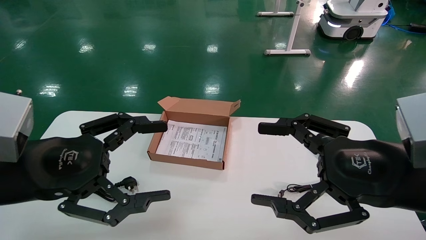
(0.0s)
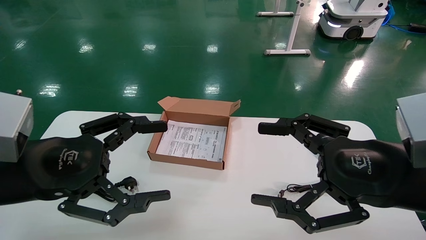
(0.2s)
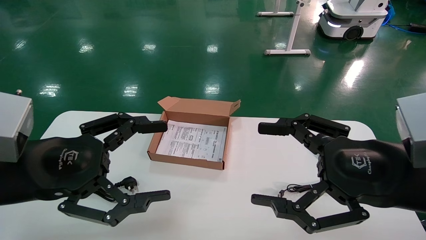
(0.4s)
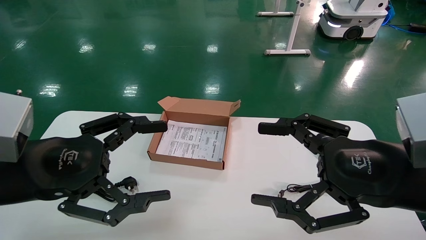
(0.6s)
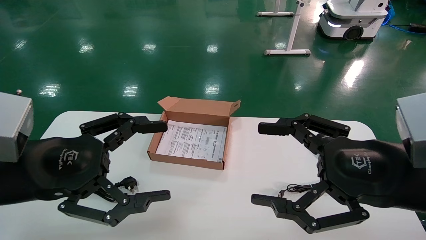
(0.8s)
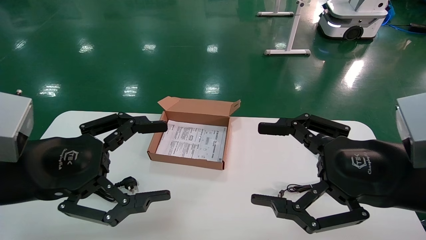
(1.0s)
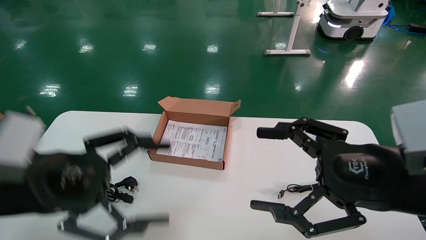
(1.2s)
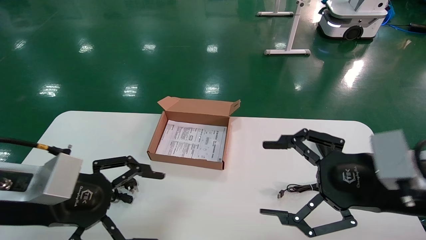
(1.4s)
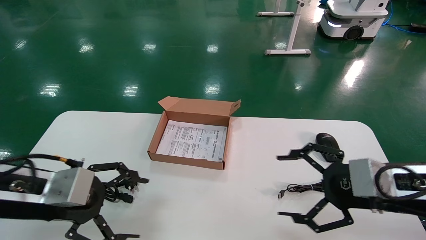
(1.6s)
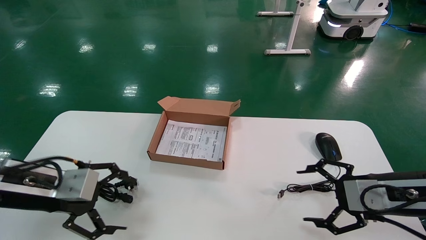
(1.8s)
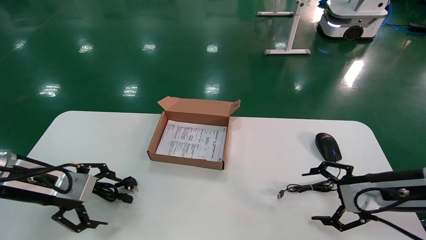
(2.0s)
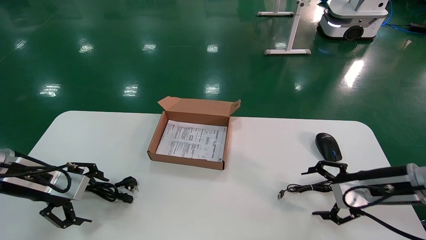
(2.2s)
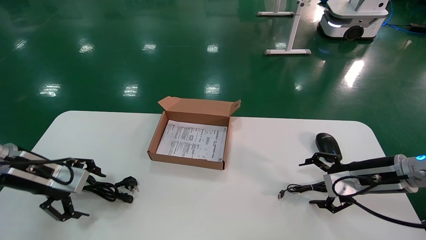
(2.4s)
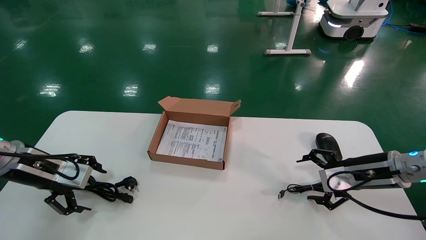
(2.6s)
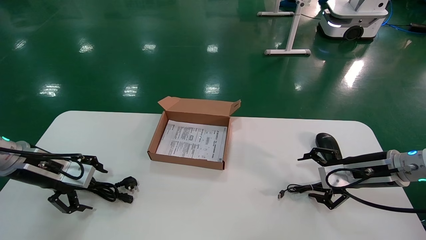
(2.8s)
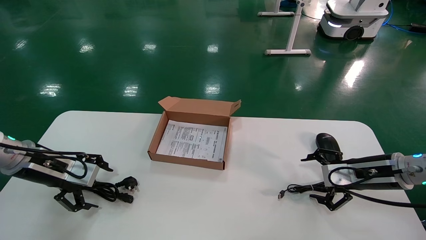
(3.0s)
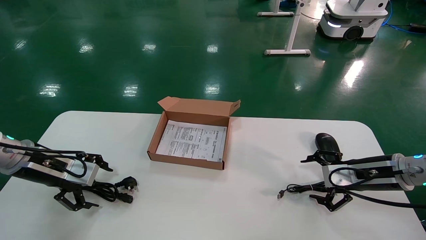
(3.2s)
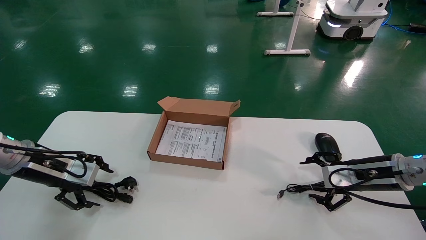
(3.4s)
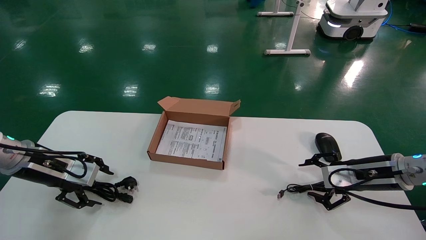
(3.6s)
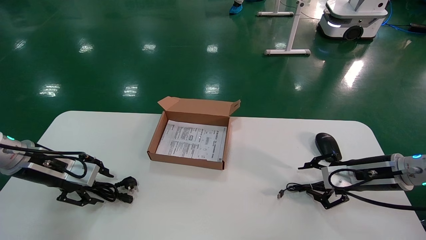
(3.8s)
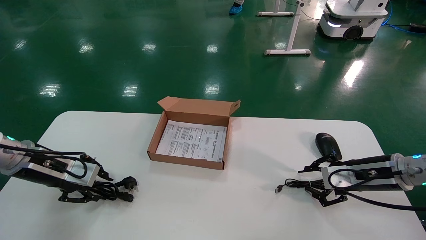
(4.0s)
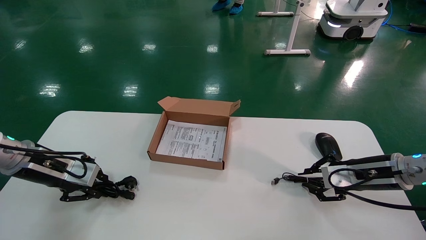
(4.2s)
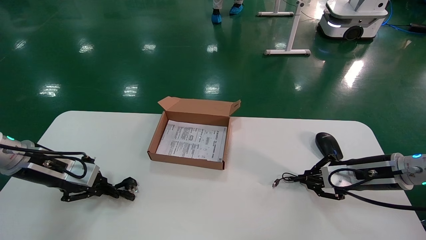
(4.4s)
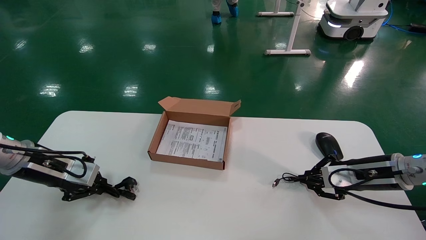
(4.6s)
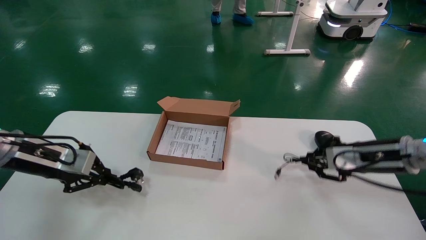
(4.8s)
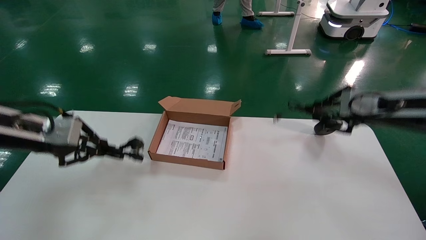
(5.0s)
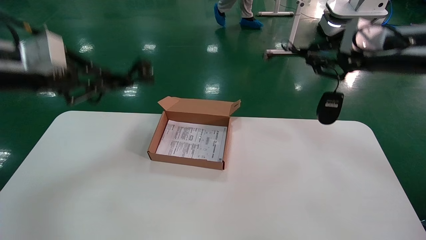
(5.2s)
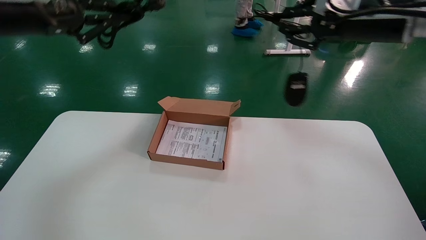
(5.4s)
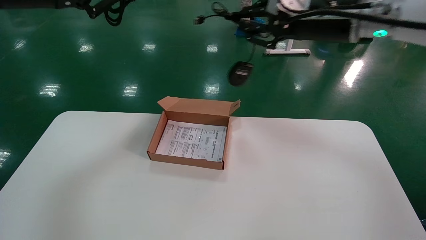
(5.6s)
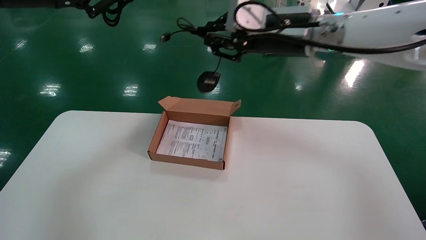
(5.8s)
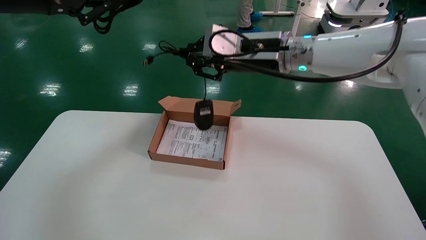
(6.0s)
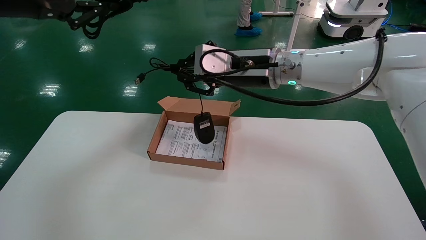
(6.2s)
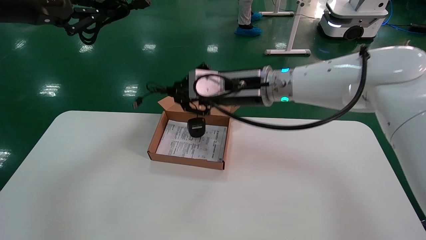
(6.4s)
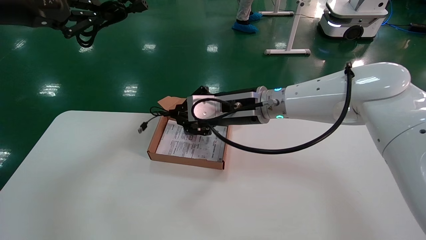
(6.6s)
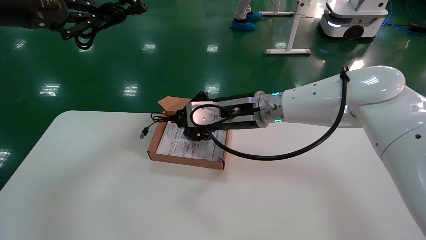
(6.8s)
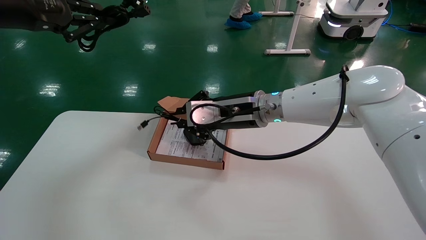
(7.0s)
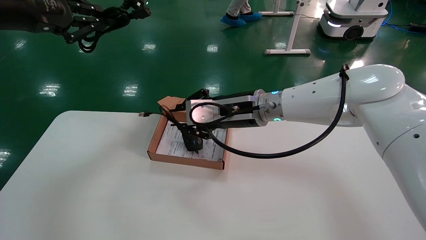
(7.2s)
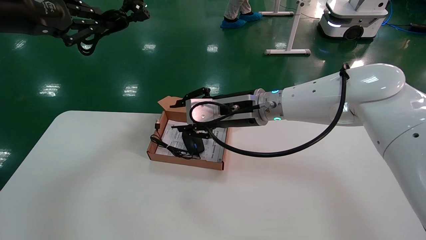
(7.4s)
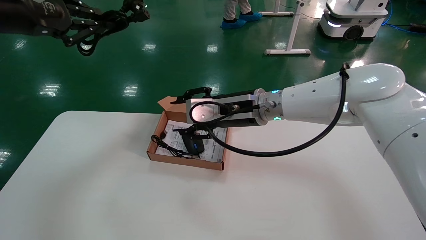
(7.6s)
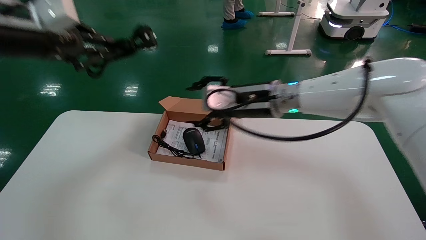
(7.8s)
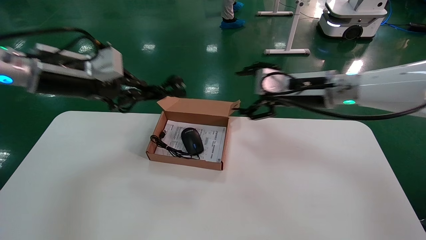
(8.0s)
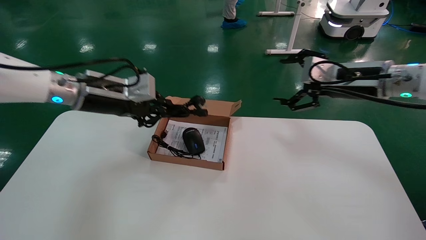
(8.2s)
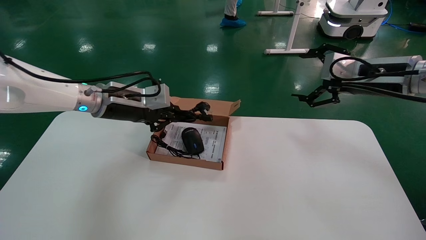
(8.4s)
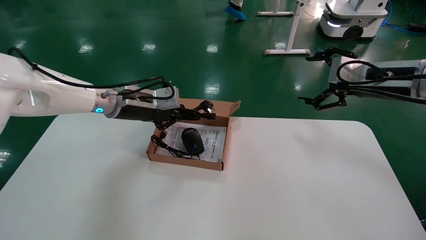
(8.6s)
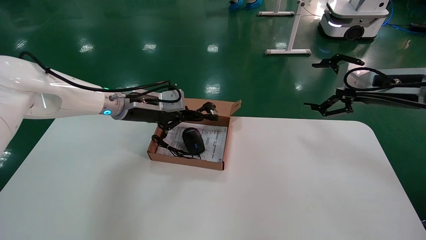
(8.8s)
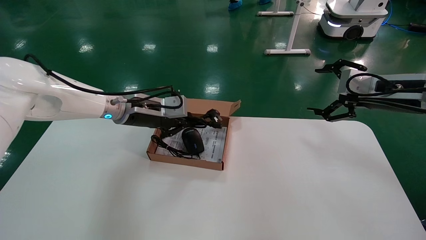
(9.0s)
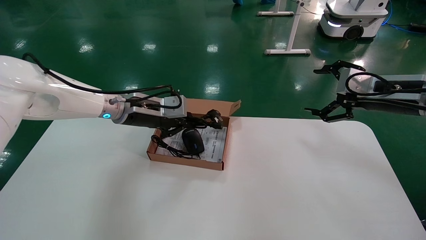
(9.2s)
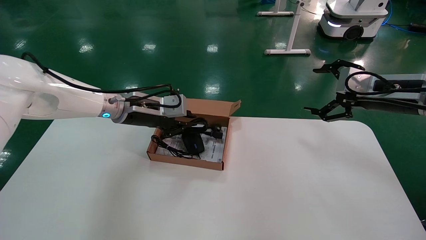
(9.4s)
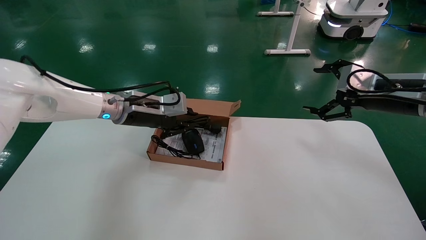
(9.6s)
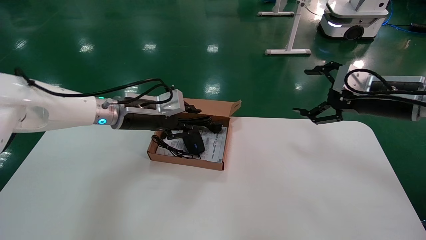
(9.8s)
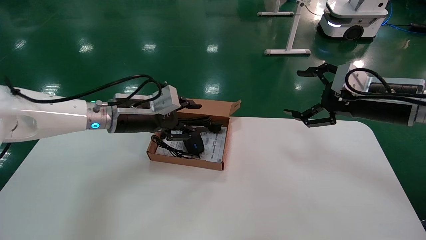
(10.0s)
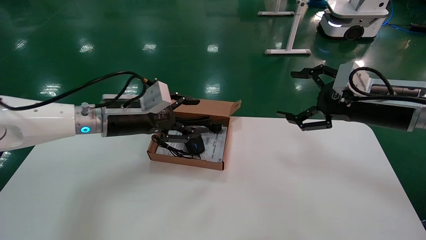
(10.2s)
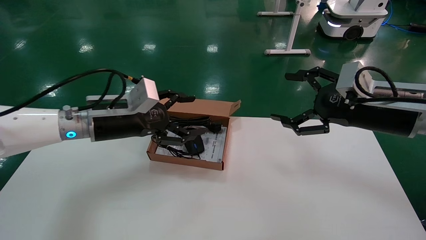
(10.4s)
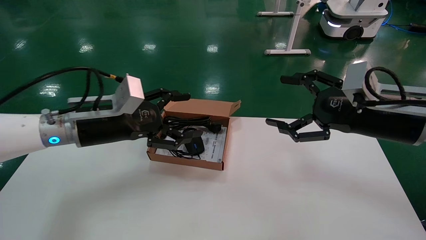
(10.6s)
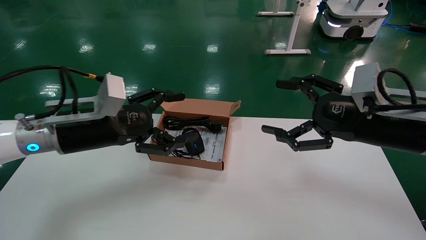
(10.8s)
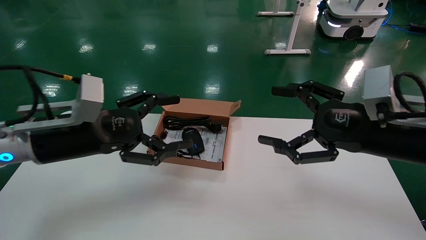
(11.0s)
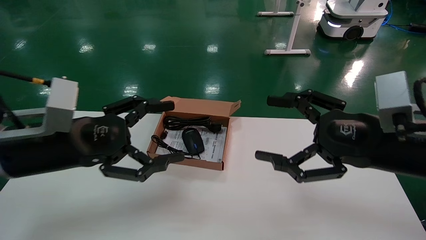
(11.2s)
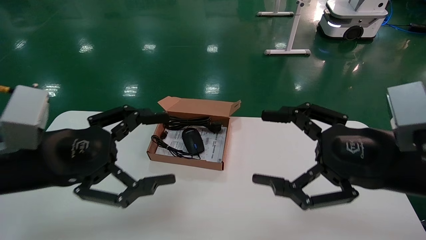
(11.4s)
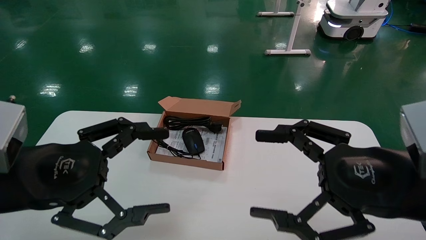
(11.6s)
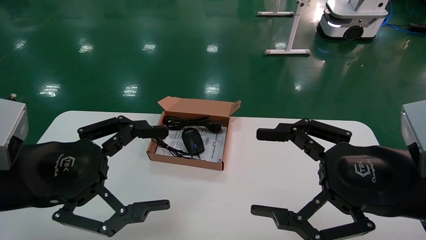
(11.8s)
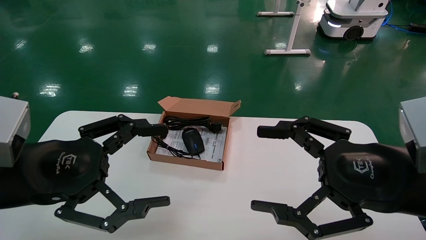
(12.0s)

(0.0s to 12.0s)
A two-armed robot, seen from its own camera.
Step, 1.4s - 4.6s: Grab and lift both the mouse and power cord from the accessory packaging area at the same time.
Step, 4.8s - 10.0s: Place the mouse and power cord into the box.
0.0s - 1.6s: The left gripper shifts by roughly 5 cm. The right gripper shifts some 10 cm forward and downward.
1.6s - 3.0s: The left gripper travels forward and to the left by roughly 15 cm; the right gripper goes about 15 cm forward and downward.
3.0s - 4.4s: The left gripper closes up. Meanwhile the right gripper closes.
4.4s - 6.0s: The left gripper shifts some 30 cm upward, while the right gripper shifts approximately 35 cm to the left and upward.
6.0s - 7.6s: The right gripper heads downward, covering approximately 10 cm, and opens its fingers.
7.6s - 9.0s: The right gripper travels to the right by about 30 cm, and opens. Meanwhile the left gripper travels downward, to the right and forward by roughly 25 cm.
9.0s - 10.4s: Both grippers move backward, about 5 cm. The left gripper opens up.
10.4s - 12.0s: Both grippers move backward, roughly 15 cm.

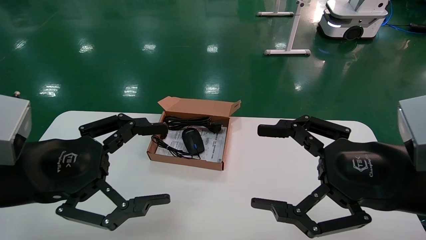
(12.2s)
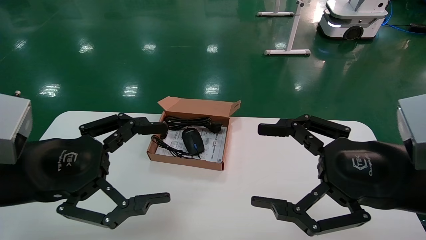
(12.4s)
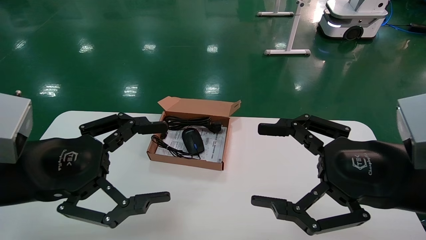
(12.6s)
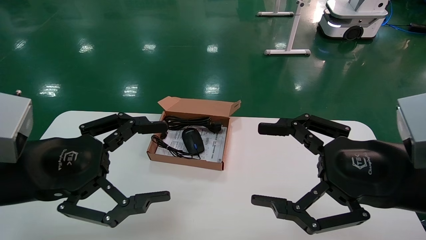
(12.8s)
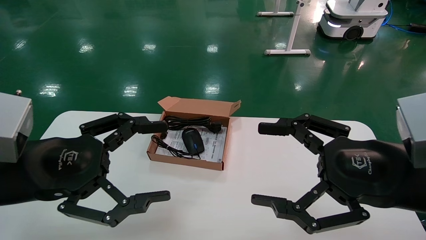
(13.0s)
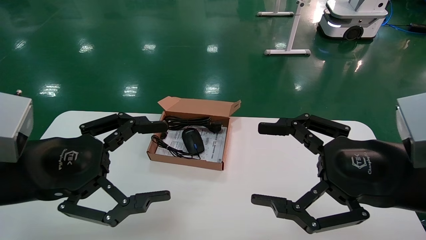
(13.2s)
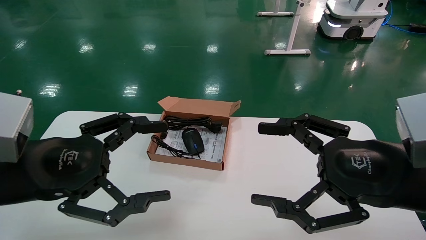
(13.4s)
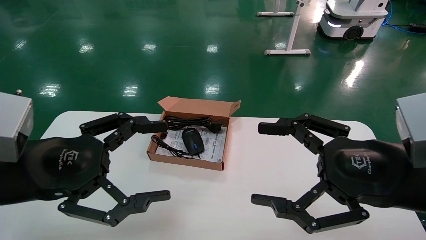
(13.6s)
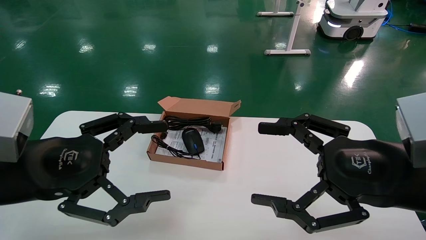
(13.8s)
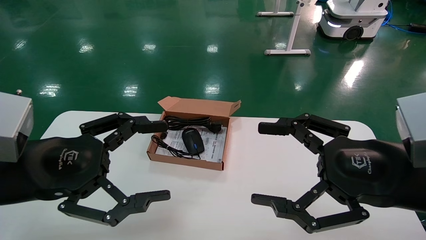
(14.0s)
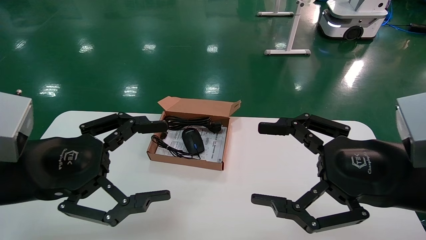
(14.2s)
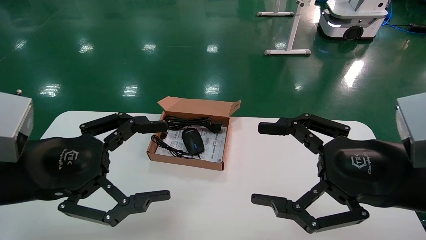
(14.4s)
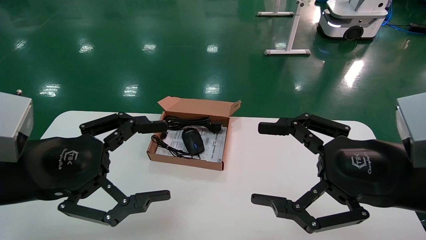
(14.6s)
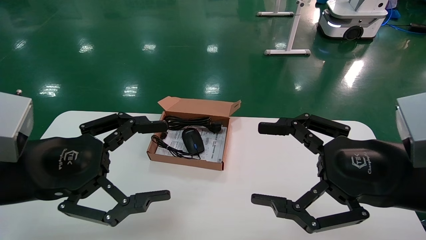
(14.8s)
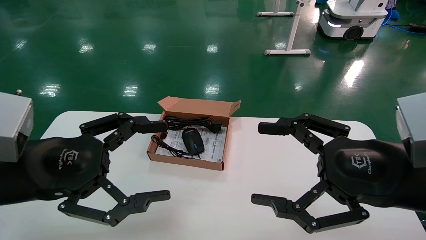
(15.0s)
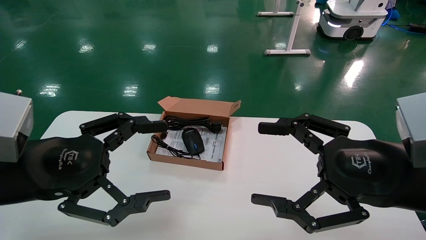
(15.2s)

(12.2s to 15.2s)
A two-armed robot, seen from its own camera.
12.2s - 15.2s: Both grippers stay about where they are.
